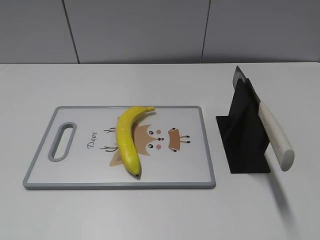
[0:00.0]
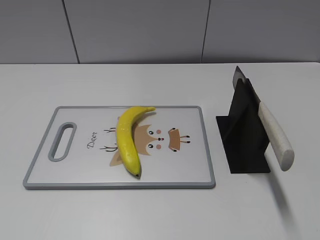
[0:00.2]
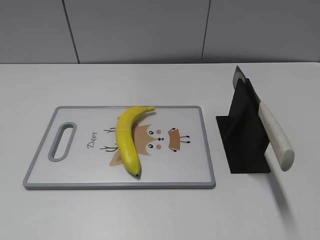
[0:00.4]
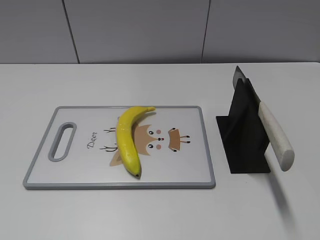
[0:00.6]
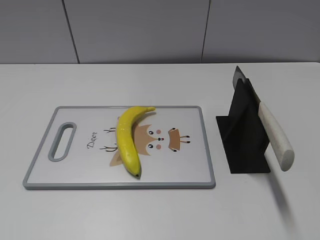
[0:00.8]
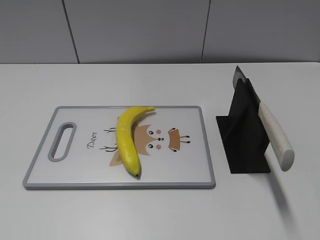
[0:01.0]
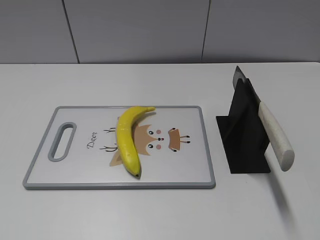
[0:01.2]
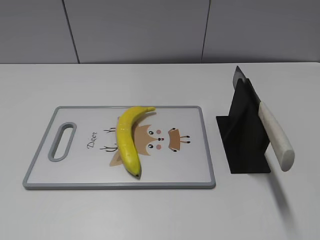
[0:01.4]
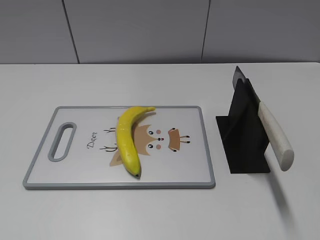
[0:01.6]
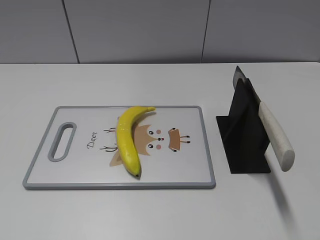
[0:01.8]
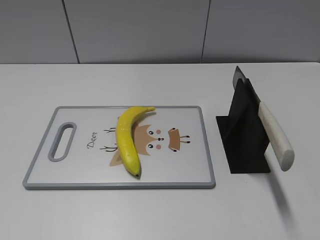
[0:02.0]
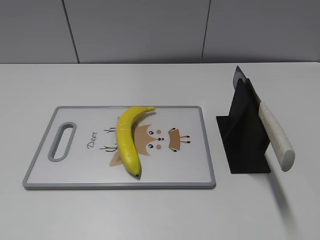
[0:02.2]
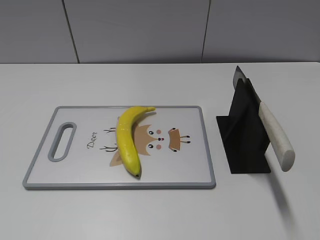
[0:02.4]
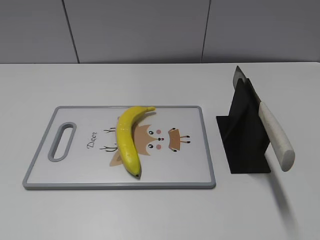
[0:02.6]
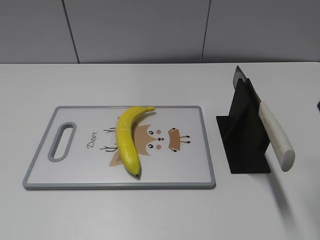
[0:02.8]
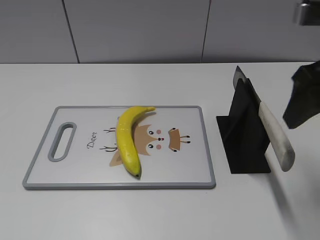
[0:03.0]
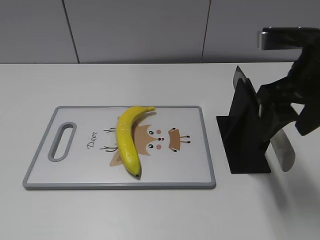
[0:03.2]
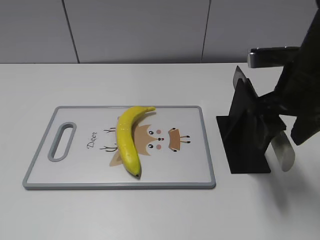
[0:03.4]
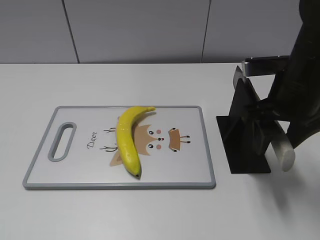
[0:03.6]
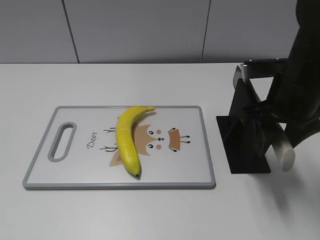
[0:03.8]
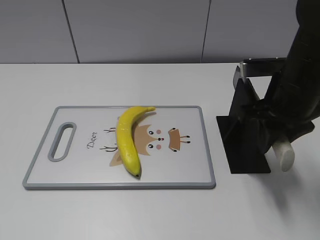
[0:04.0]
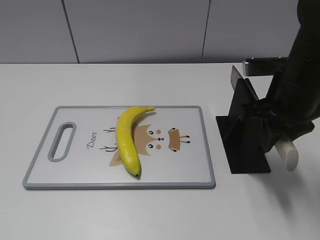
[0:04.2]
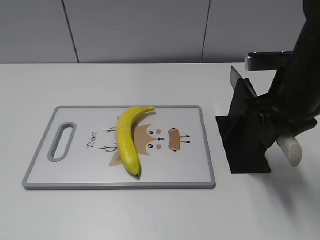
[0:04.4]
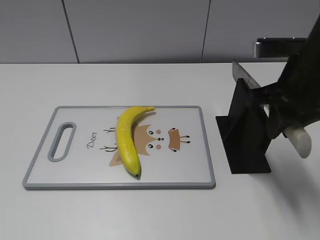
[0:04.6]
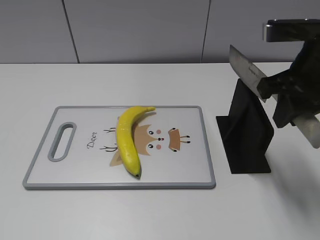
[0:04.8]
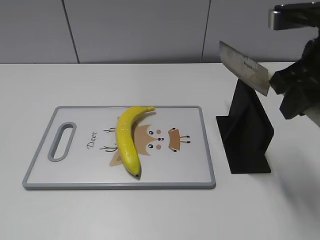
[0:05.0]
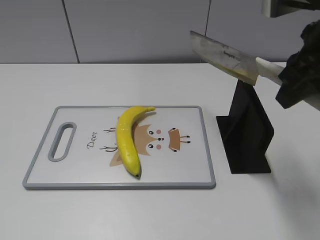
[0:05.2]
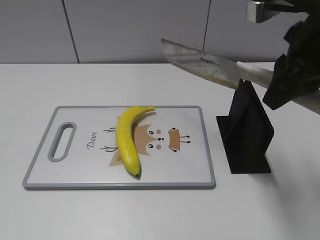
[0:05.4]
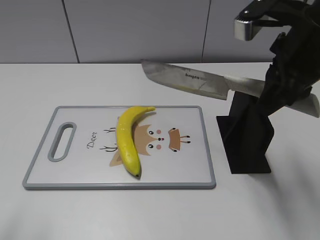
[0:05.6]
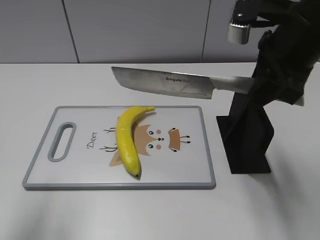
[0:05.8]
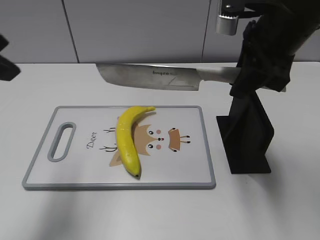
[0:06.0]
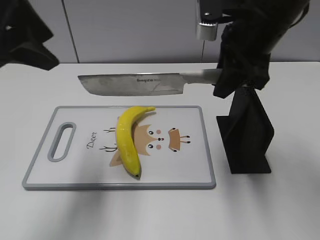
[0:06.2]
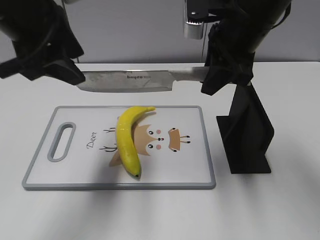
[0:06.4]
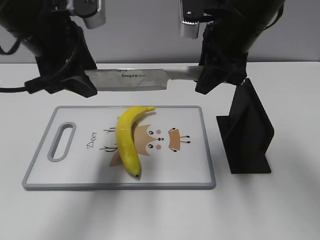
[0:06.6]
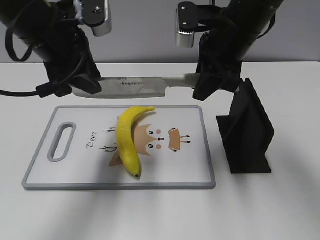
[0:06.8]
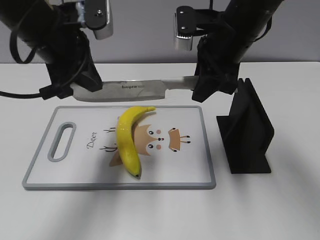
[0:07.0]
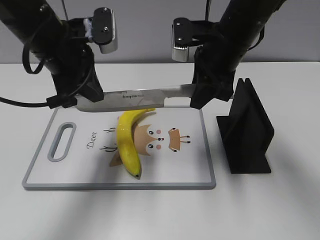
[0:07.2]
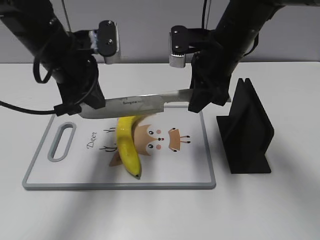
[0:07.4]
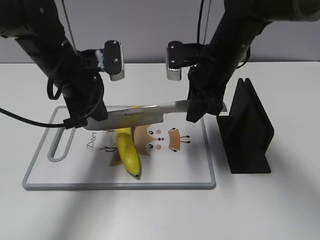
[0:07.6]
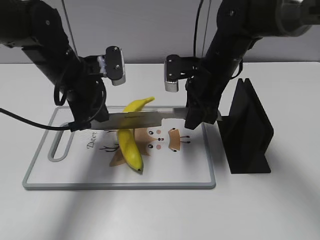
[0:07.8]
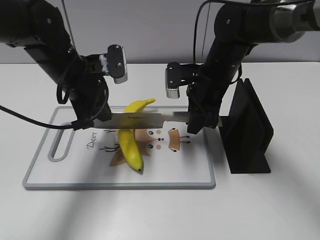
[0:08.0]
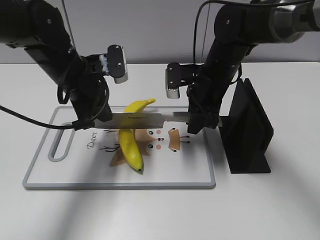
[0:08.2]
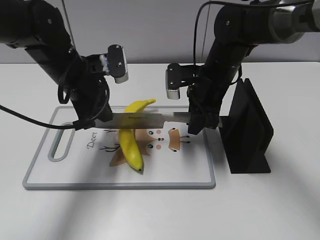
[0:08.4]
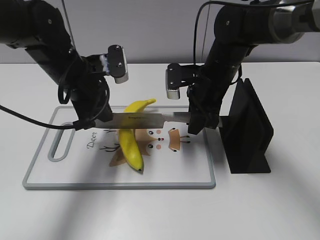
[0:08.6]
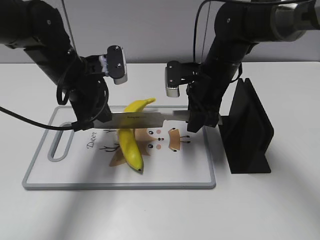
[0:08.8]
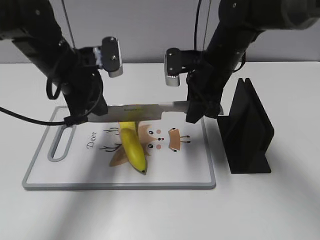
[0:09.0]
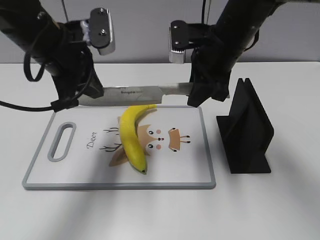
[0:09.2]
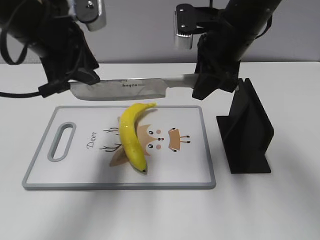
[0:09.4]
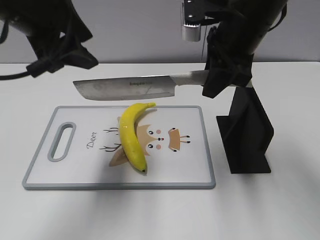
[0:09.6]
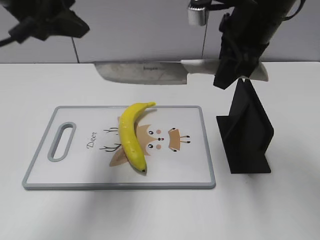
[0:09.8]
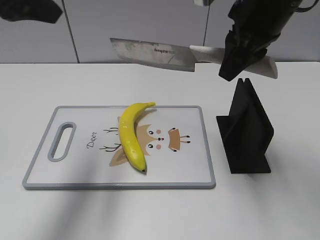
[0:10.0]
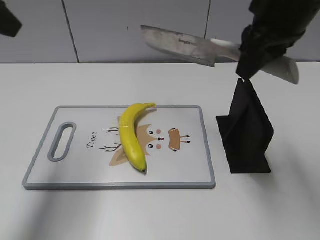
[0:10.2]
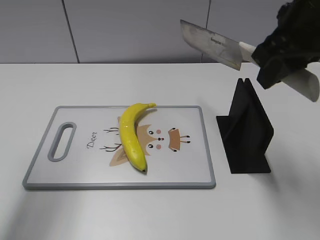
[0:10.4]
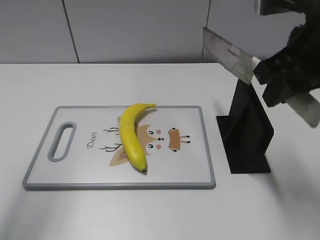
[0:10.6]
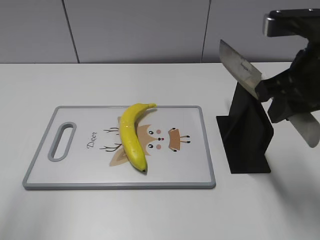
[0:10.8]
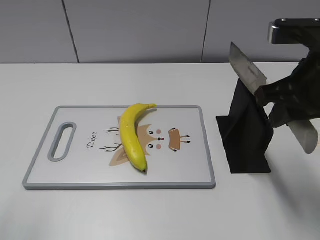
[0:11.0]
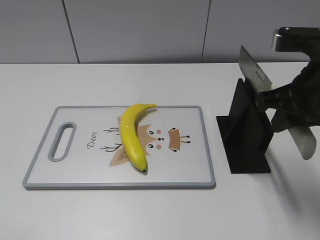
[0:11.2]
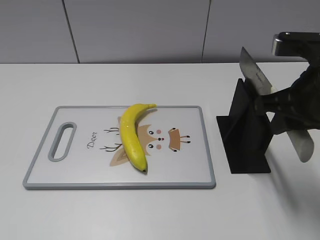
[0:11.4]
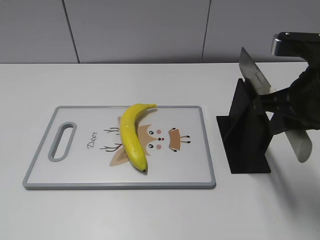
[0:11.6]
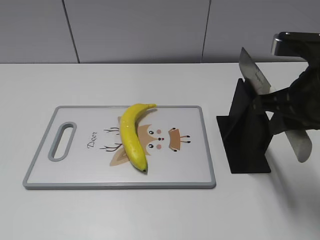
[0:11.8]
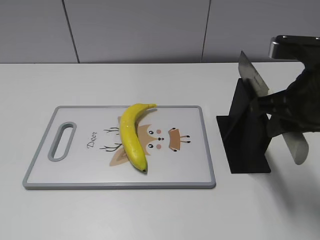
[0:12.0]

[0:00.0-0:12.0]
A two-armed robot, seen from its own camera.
Task of the whole recording: cut plastic banana.
Step, 0.0 to 5.0 s: Grab the knife handle with your right hand.
Step, 5.2 to 8.6 s: Lift the knife with your right hand.
Step, 9.0 to 11.0 s: Cut the banana with your right hand.
1.6 to 3.0 s: The right gripper goes approximately 25 cm forward.
3.0 to 4.4 s: The right gripper moves downward, approximately 5 cm, and closes.
4.4 to 6.0 s: The right gripper goes approximately 5 cm upward, while the left gripper heads forward, covering about 25 cm.
6.0 to 7.6 s: The left gripper goes some 20 cm downward, forward and to the right, and closes, while the right gripper goes roughly 15 cm downward, forward and to the left.
7.6 to 9.0 s: There are only small adjustments of the grippers.
9.0 to 10.4 s: The right gripper goes approximately 20 cm upward, backward and to the right; the left gripper travels upward, to the left and backward by roughly 25 cm, and opens.
10.4 to 12.0 s: The left gripper shifts roughly 30 cm backward and downward; the right gripper is displaced downward by some 10 cm.

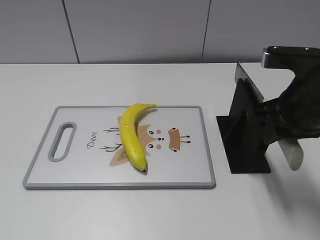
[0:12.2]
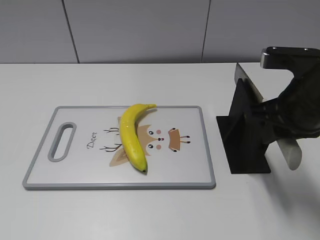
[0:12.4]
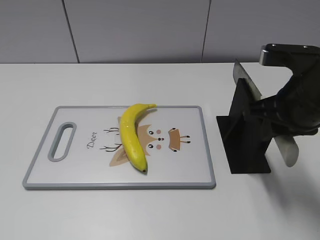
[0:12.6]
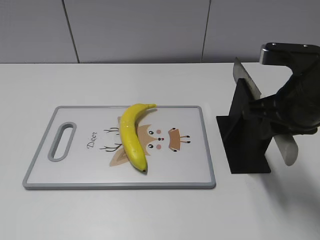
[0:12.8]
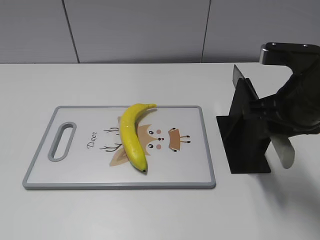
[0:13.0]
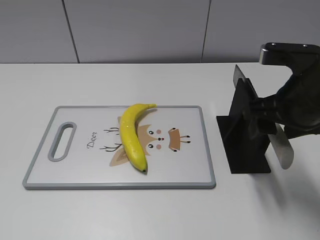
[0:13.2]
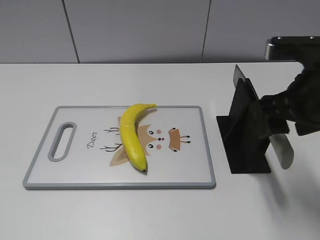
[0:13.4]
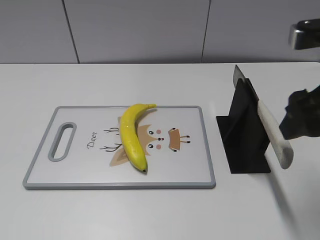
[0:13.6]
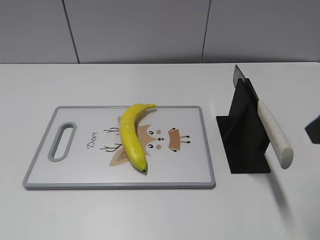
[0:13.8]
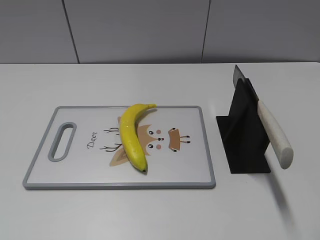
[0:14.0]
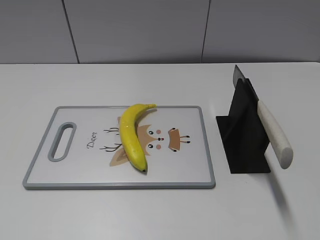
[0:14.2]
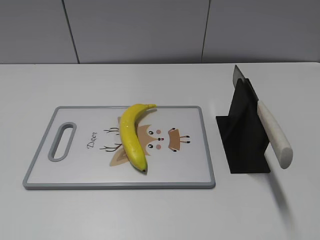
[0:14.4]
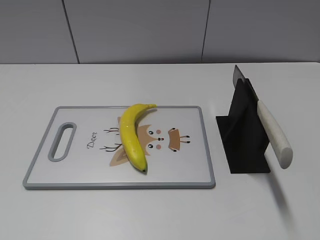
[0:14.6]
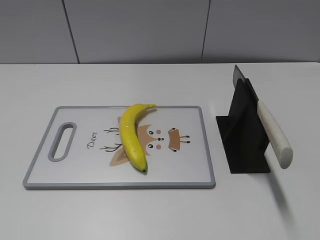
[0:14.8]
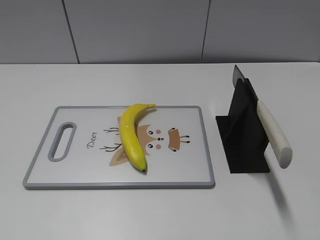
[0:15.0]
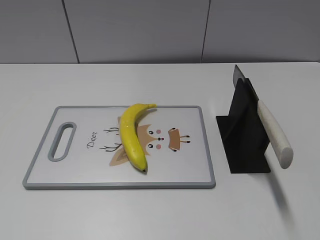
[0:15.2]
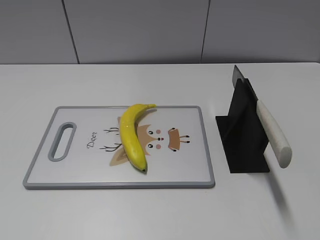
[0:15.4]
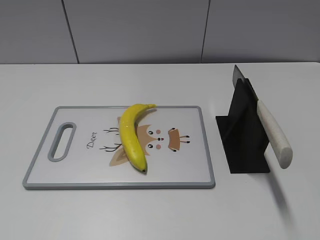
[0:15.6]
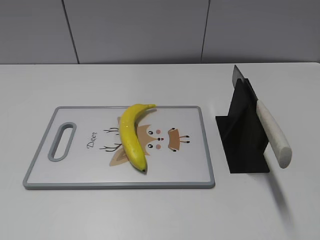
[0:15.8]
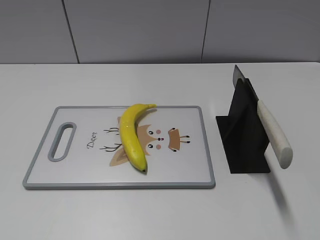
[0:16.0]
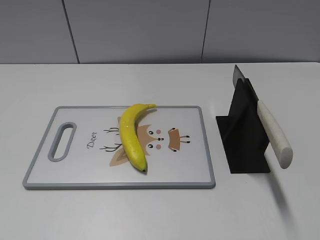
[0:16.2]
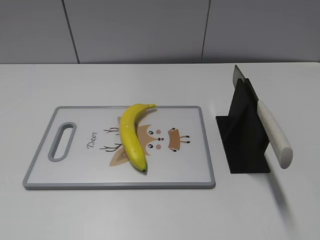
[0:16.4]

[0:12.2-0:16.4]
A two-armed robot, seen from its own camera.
Task of the whole recording: cut plastic banana.
Step, 12.2 to 16.2 s: Place the knife on the storage rack with your right hand.
12.2 to 13.6 s: The right gripper travels upward by approximately 5 cm, and opens up.
13.6 to 15.0 s: The right gripper is displaced backward and to the right by some 20 cm.

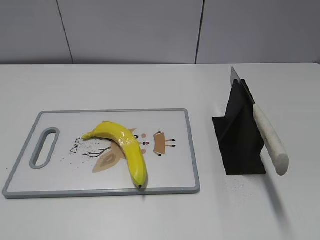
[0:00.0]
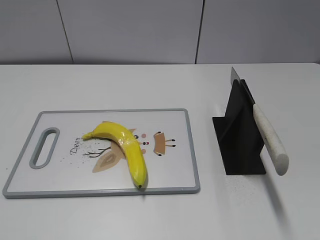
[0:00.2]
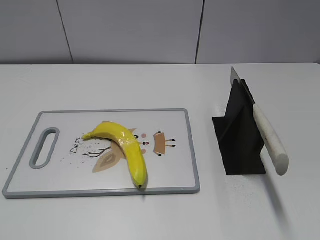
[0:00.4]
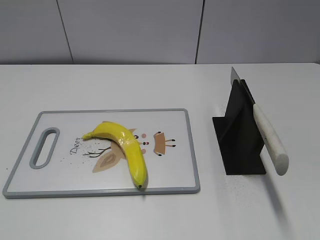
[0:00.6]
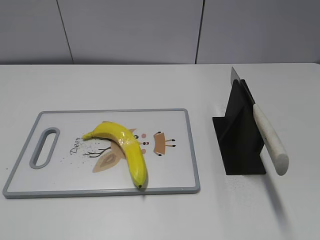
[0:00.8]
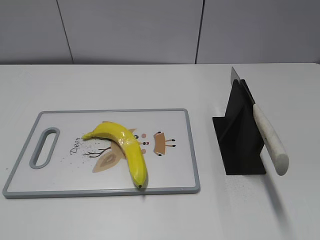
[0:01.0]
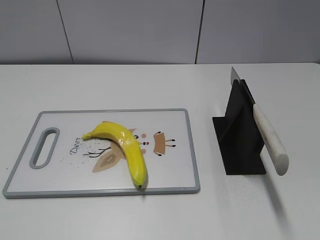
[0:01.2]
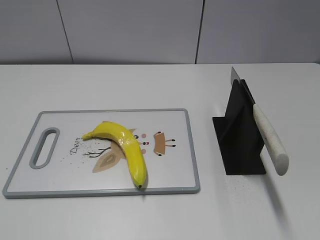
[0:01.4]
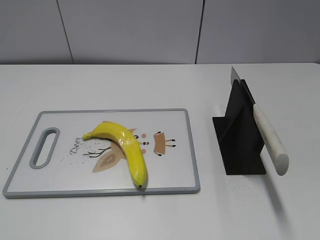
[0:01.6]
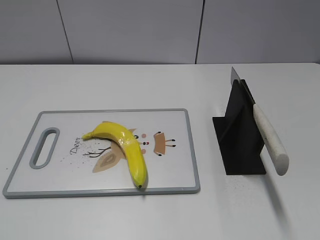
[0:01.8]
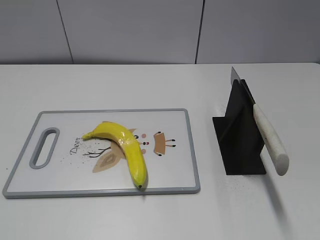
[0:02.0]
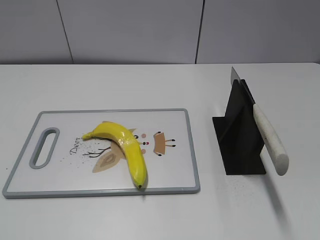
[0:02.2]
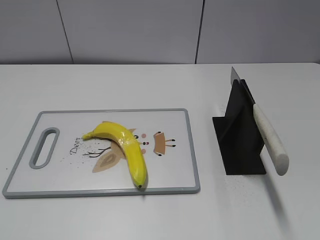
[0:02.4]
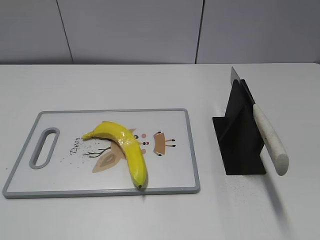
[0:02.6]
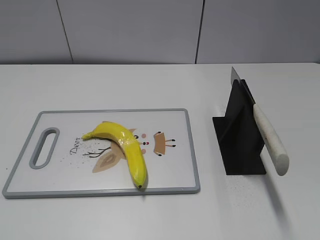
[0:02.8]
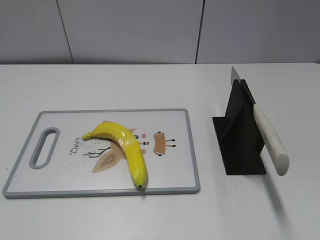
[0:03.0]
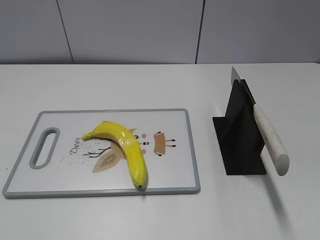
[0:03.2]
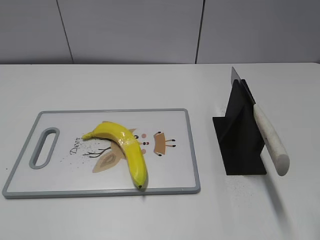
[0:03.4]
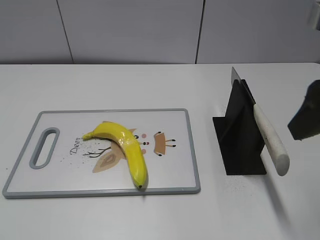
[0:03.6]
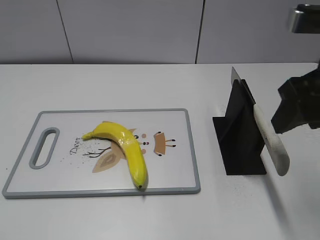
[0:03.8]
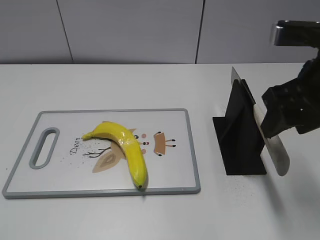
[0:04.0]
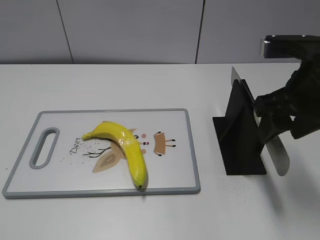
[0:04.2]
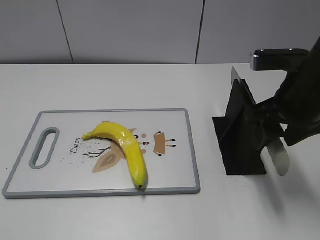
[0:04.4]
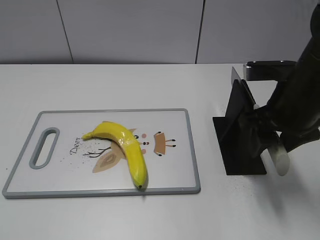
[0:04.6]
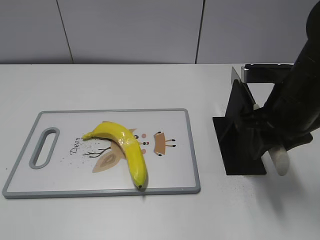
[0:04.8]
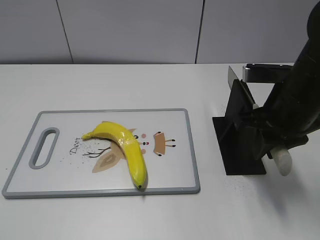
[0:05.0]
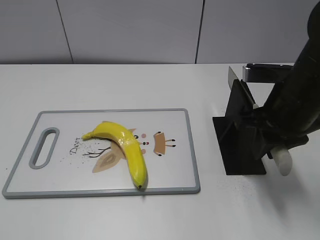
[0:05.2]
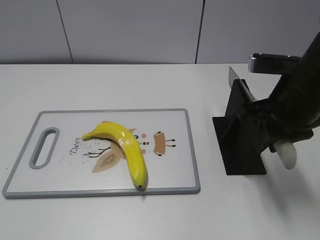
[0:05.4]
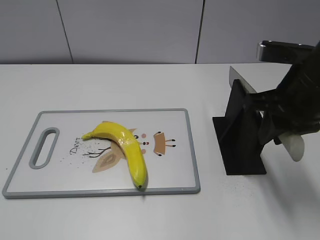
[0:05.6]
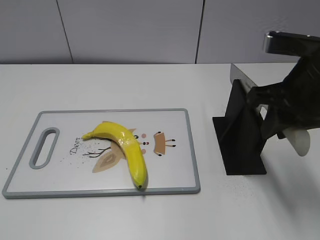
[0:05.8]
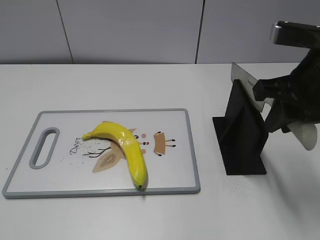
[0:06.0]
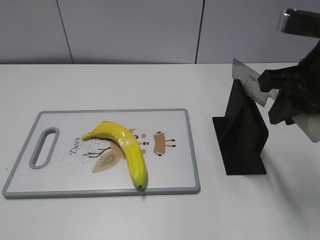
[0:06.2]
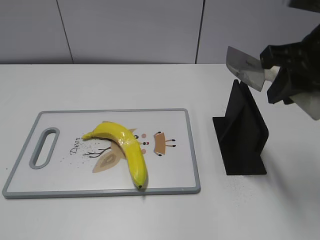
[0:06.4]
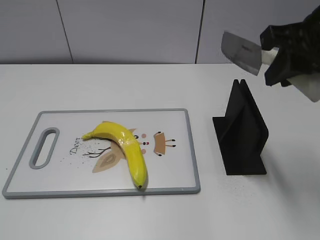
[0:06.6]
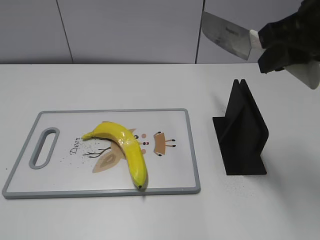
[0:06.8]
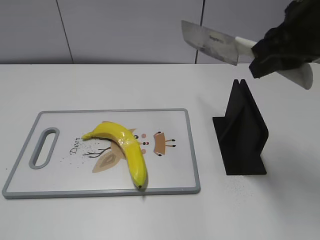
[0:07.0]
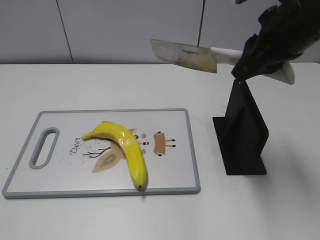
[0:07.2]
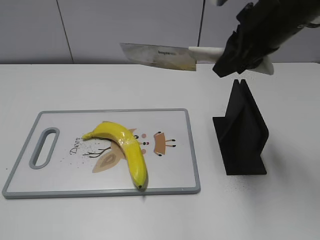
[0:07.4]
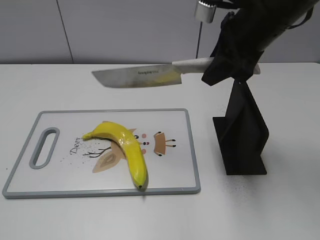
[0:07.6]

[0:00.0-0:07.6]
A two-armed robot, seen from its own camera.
Task of the whole recording: cut plastic banana.
Step, 0.0 to 6.2 s: Grab the knife handle with your right hand.
3.0 to 4.6 s: The right gripper travels forward, downward and to the left by roughly 25 cm.
4.6 to 6.0 s: The right gripper goes approximately 5 cm upward, and closes up.
6.0 to 7.6 s: The right gripper shifts about 10 cm forward and to the left.
